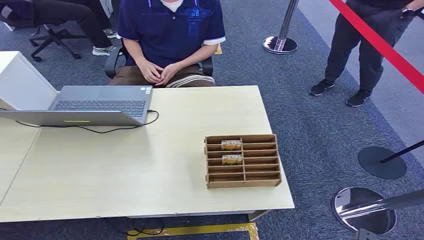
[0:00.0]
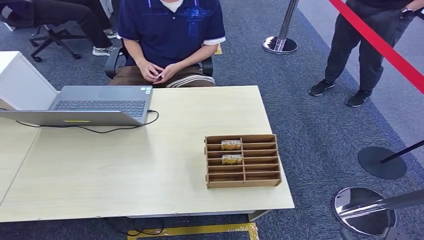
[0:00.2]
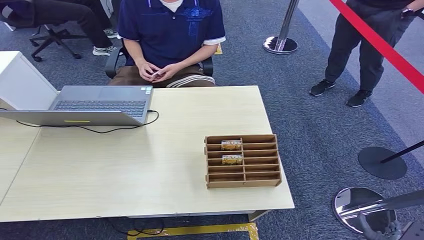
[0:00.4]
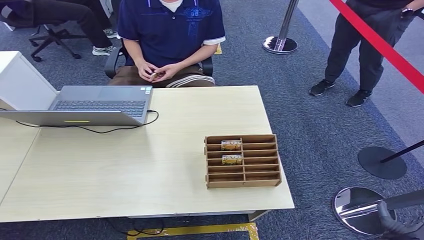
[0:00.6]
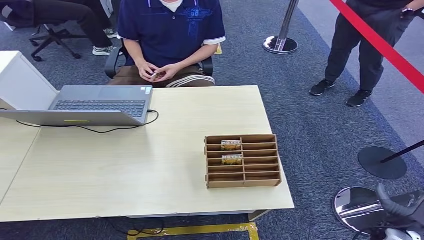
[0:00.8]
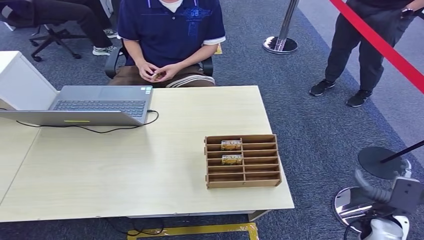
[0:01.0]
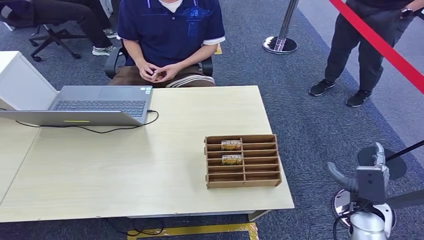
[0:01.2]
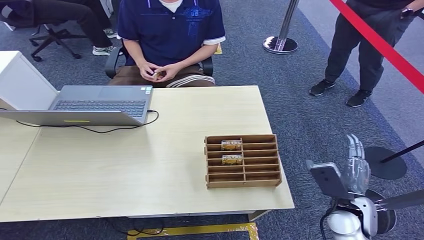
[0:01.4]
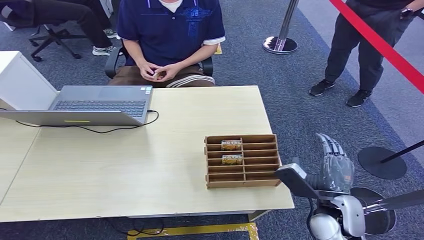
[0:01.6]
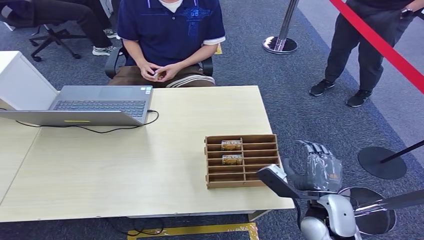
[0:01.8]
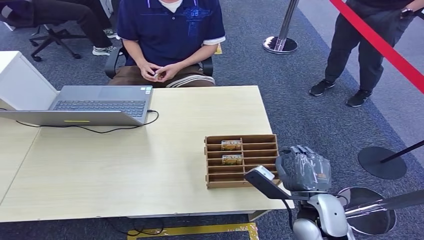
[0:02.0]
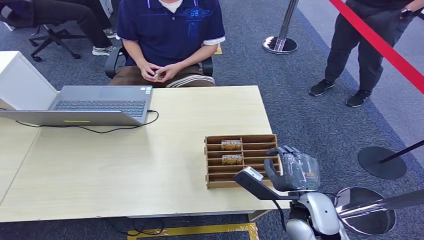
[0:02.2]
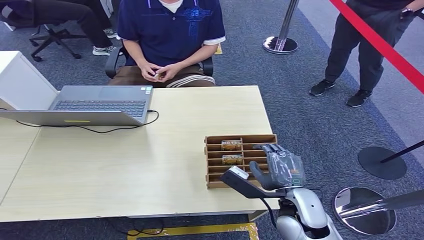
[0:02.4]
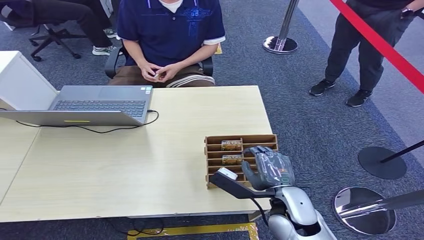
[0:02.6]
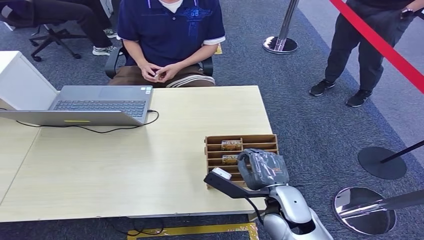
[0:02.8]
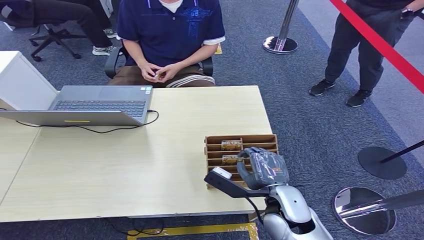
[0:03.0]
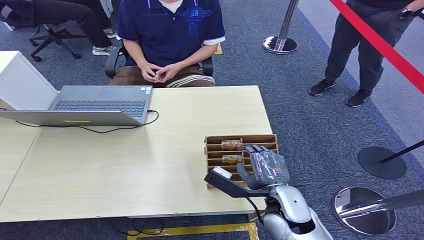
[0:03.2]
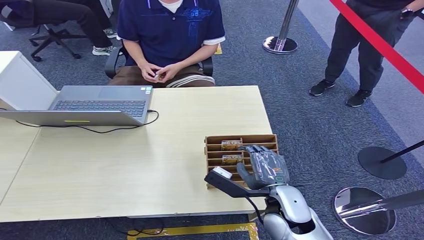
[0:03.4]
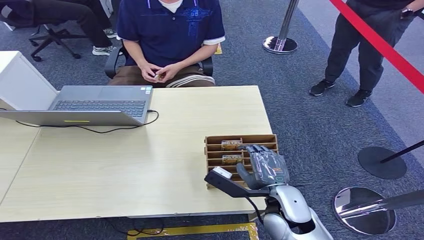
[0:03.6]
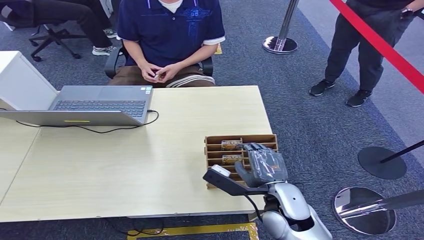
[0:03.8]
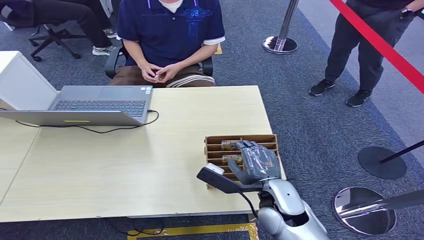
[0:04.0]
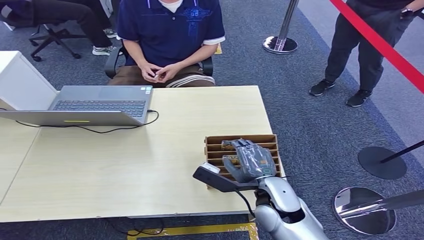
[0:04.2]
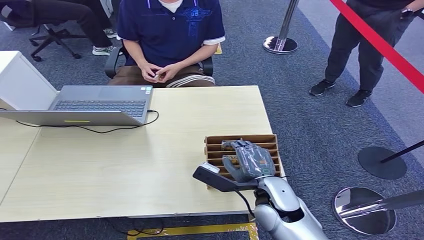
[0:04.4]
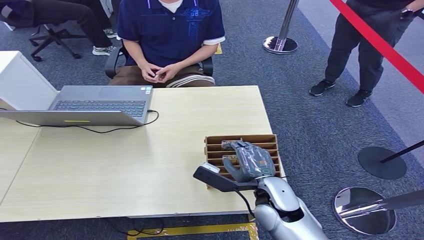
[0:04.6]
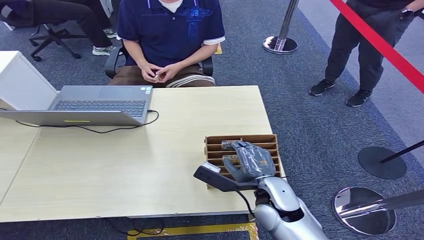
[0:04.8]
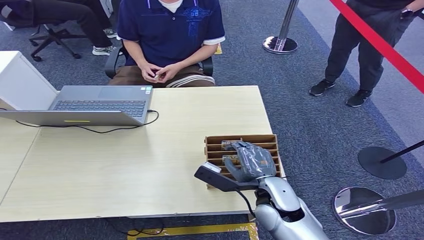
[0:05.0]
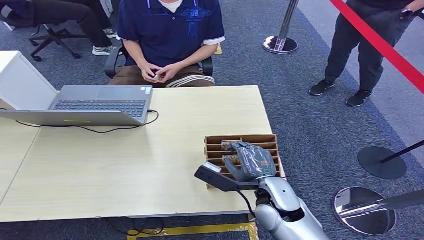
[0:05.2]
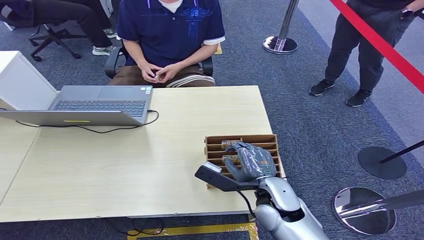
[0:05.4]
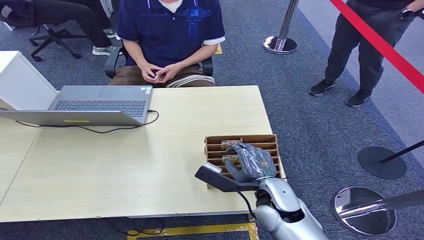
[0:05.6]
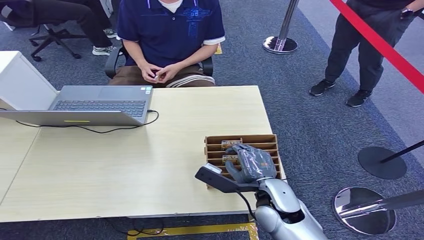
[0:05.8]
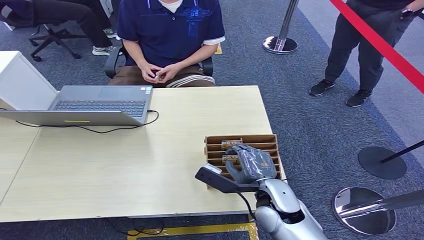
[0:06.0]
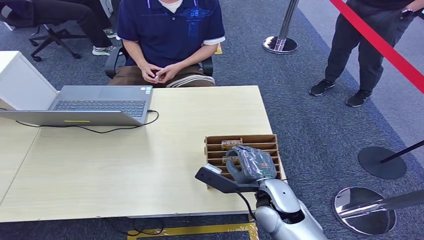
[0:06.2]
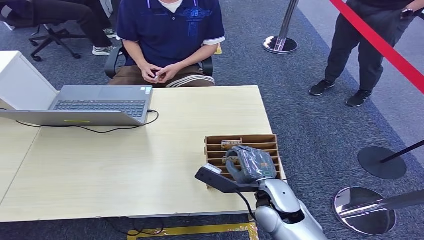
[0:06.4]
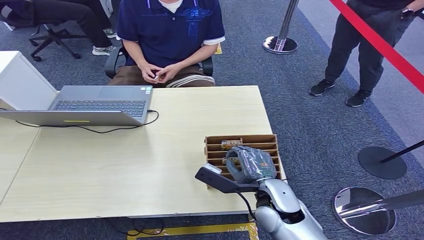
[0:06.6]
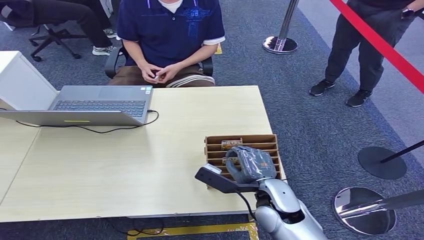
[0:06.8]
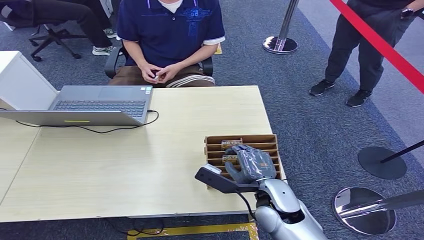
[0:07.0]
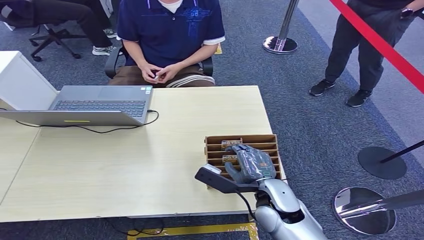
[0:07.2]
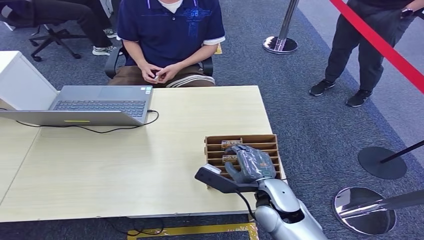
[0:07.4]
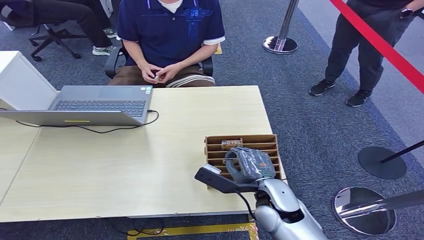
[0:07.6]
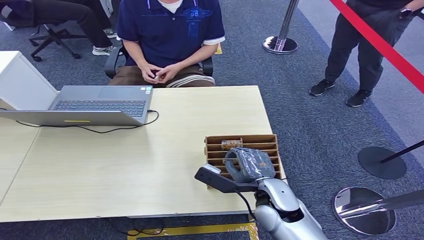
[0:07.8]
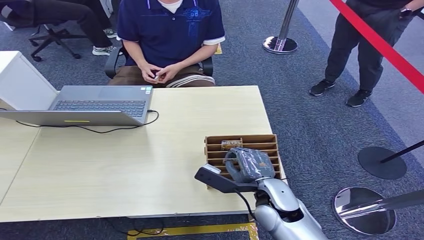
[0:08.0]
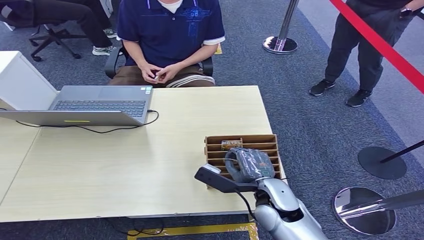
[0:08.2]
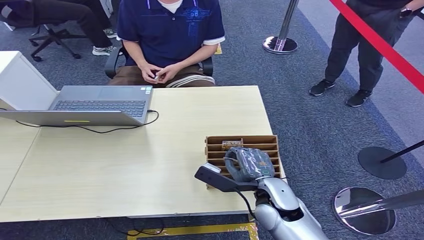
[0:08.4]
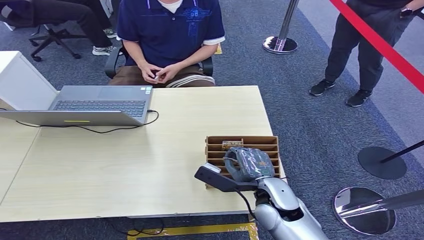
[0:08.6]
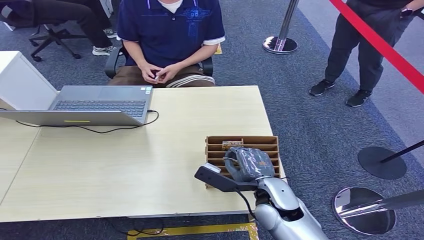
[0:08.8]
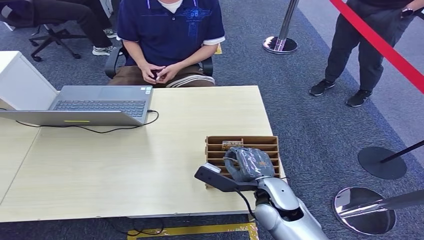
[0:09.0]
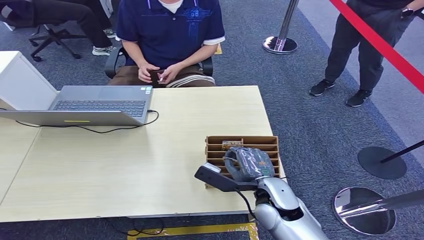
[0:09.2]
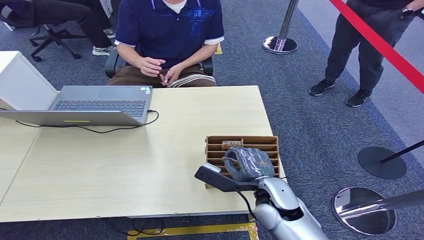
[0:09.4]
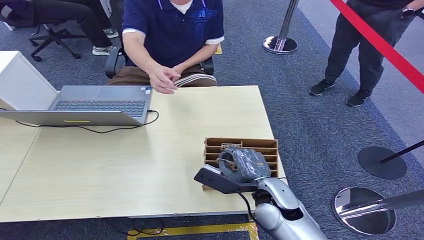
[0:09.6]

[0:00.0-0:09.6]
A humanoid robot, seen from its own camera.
0:01.6 to 0:03.2: The right hand goes some 10 cm to the left.
0:03.2 to 0:04.8: The hands stay close to where they were, moving slightly.
0:04.8 to 0:08.0: Both hands stay about where they are.
0:08.0 to 0:09.6: The hands move only a little.

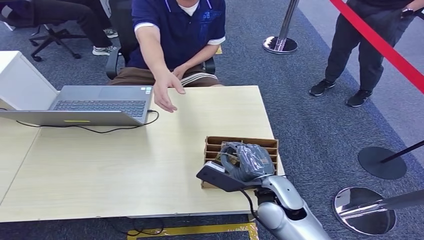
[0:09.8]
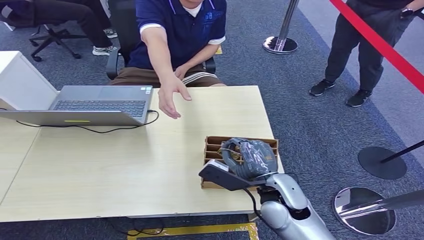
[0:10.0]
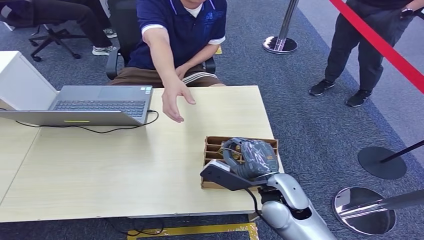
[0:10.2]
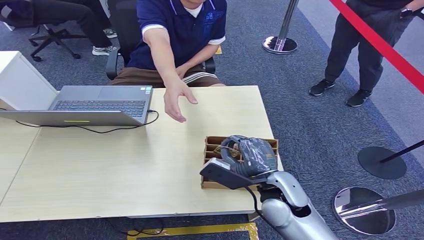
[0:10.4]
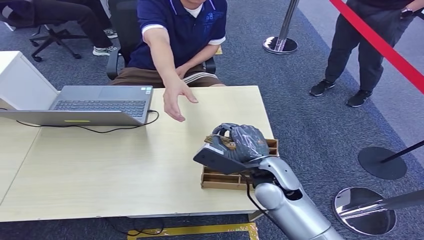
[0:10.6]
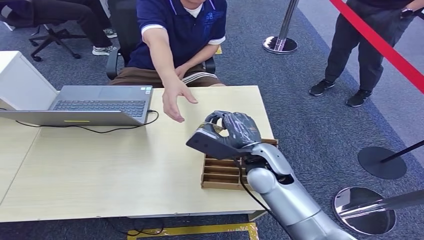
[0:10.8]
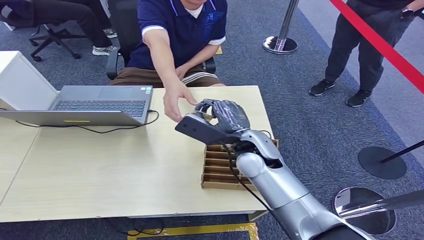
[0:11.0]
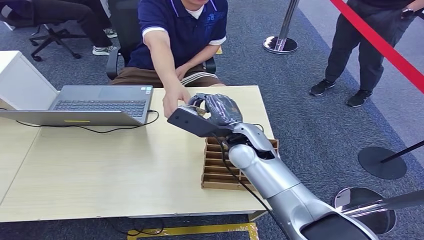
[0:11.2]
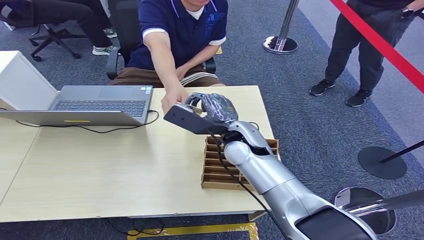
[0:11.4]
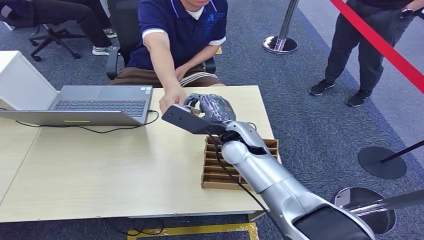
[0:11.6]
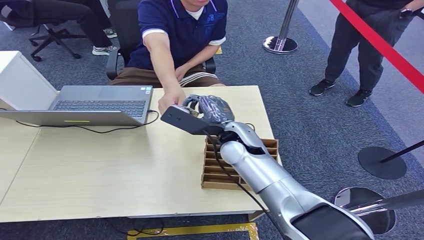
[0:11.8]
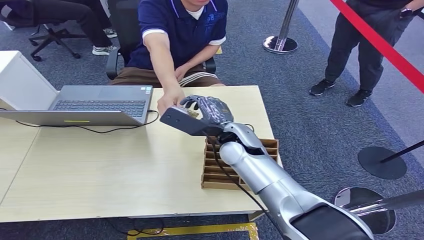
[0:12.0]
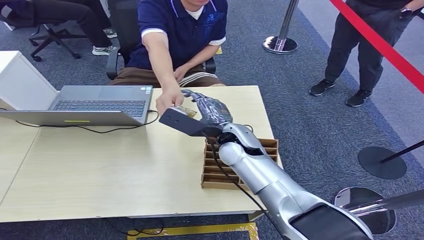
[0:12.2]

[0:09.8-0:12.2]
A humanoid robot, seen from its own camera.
Step, 0:10.8 to 0:12.2: Hand the key card to the target.
0:09.8 to 0:11.0: The right hand goes approximately 15 cm forward and upward.
0:11.0 to 0:12.2: There are only small adjustments of the hands.
